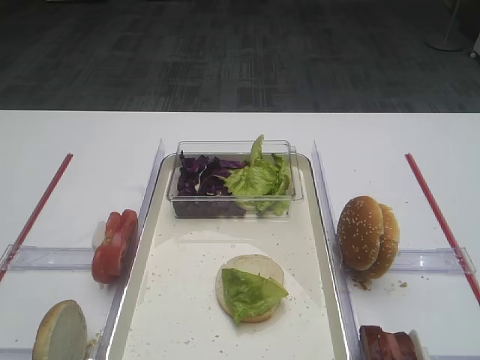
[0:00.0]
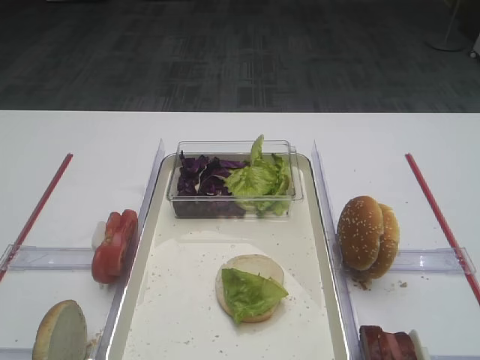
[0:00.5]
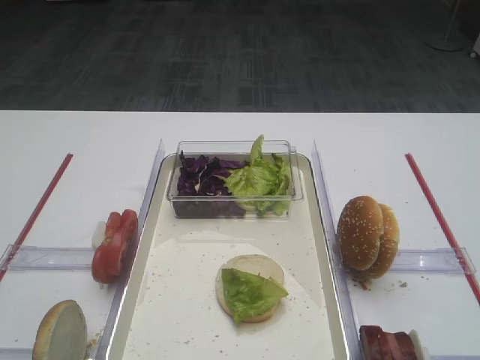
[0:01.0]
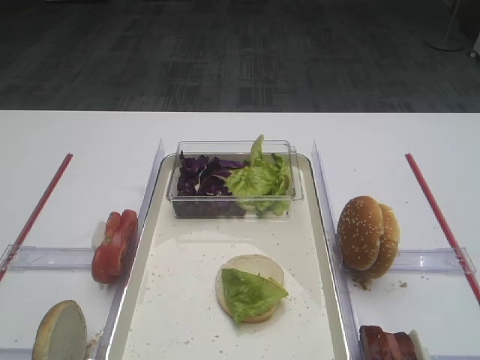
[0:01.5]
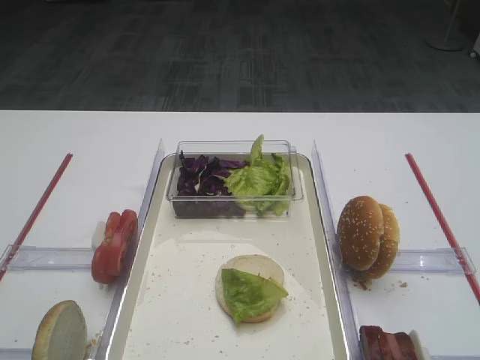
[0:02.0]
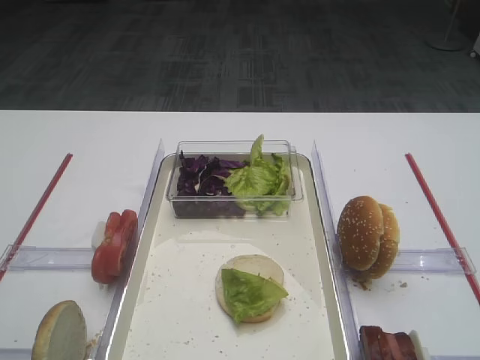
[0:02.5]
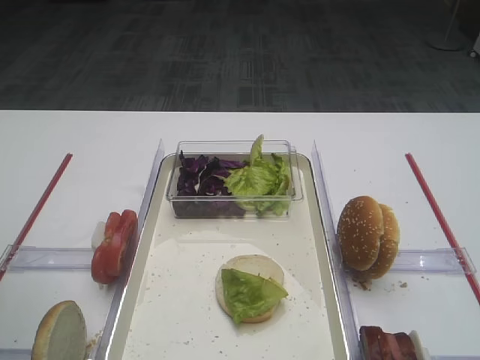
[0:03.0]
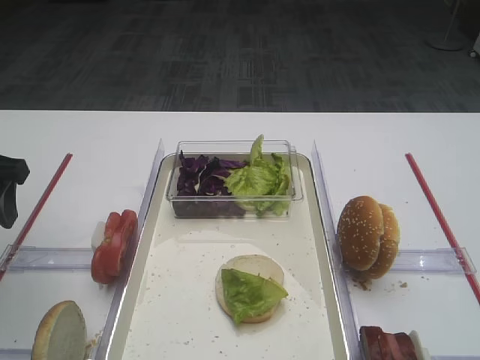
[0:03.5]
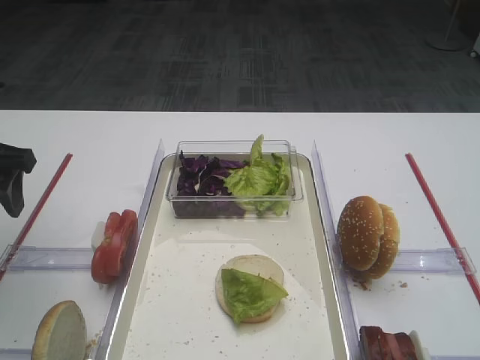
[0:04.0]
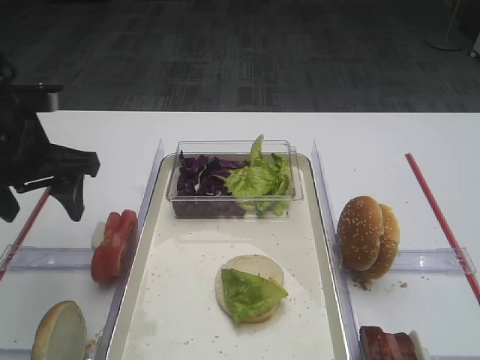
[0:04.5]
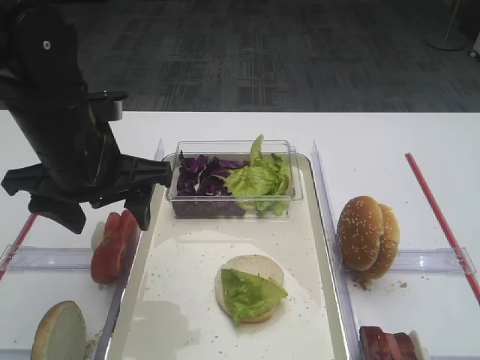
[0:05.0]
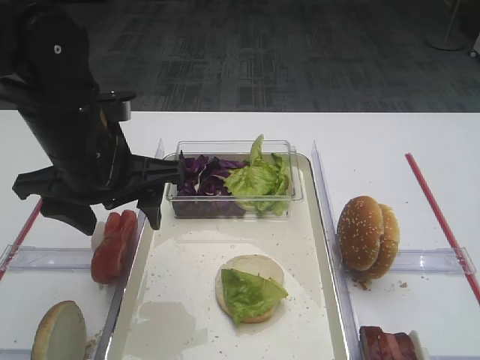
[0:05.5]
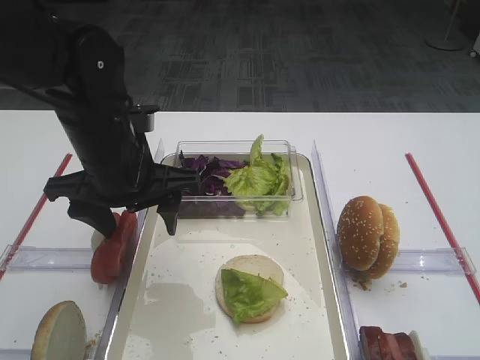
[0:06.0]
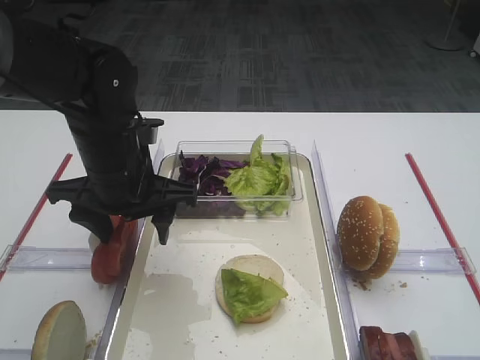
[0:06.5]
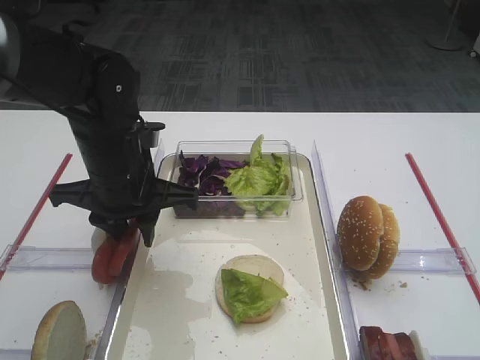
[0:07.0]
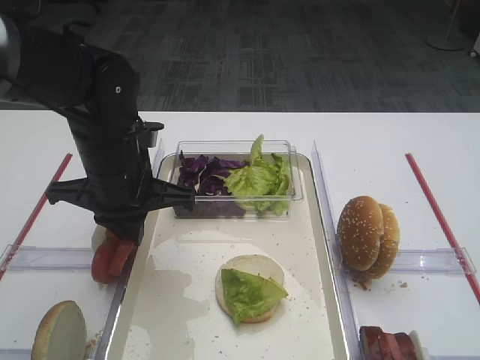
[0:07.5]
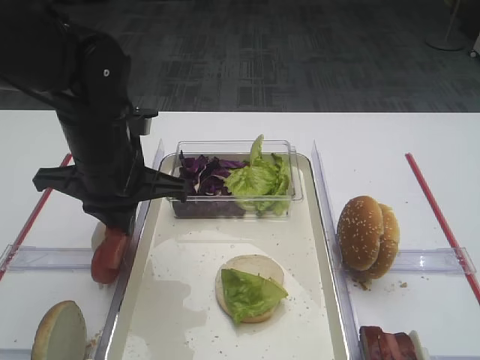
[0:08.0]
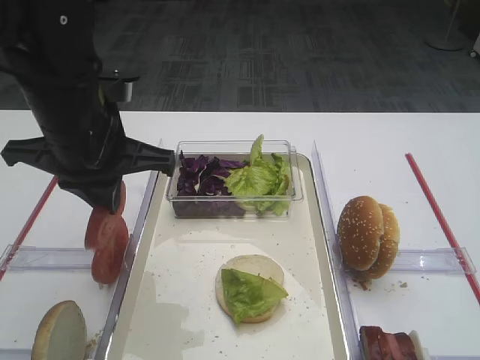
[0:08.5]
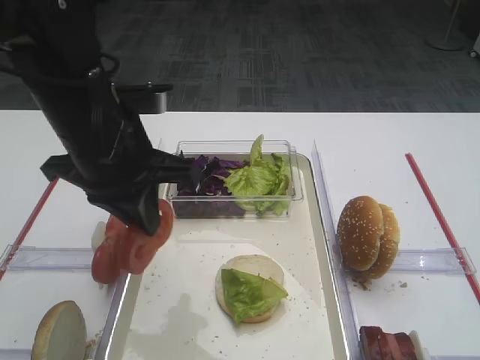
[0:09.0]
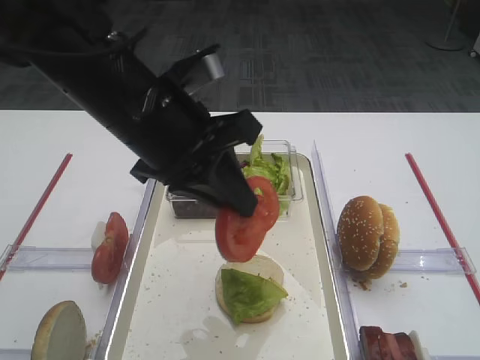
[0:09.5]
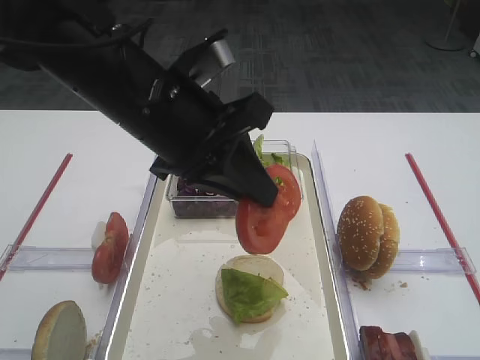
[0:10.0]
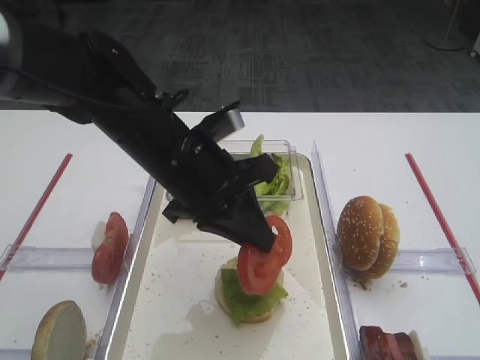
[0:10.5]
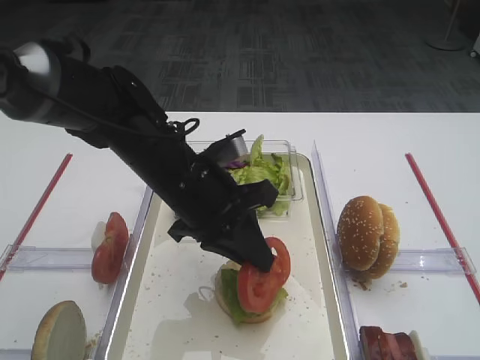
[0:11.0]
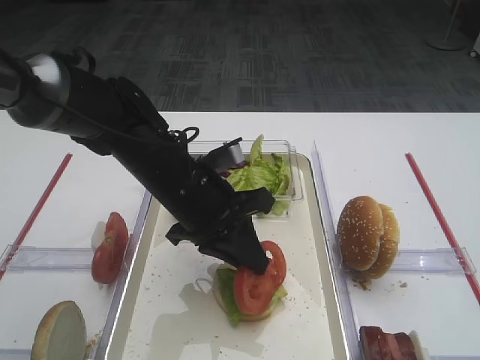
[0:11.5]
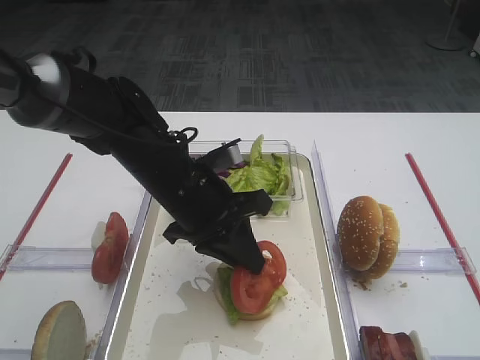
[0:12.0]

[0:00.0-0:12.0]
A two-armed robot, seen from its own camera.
Step, 0:00.0 to 0:08.0: Pick up the tomato slice with the left gripper.
0:02.0 to 0:04.0: The left gripper is displaced forward by about 20 cm.
0:04.0 to 0:06.0: The right gripper closes. Meanwhile the left gripper shifts some 15 cm to the right.
0:06.0 to 0:08.0: The left gripper closes up.
0:08.0 to 0:10.0: The left gripper goes some 10 cm upward and to the right.
0:10.0 to 0:12.0: The left gripper goes some 10 cm downward.

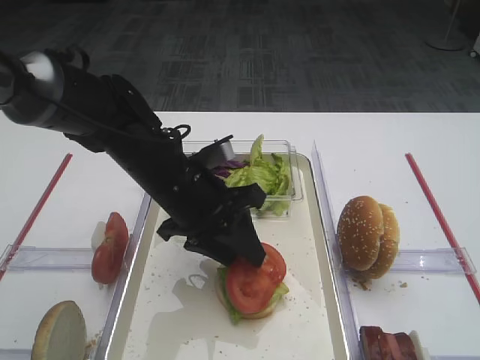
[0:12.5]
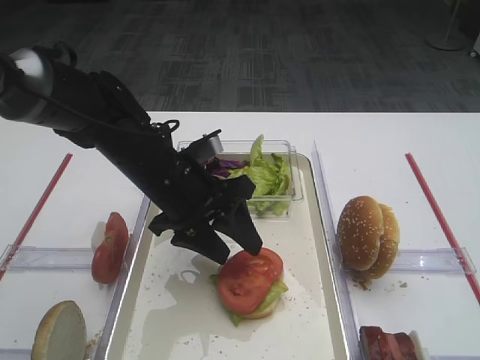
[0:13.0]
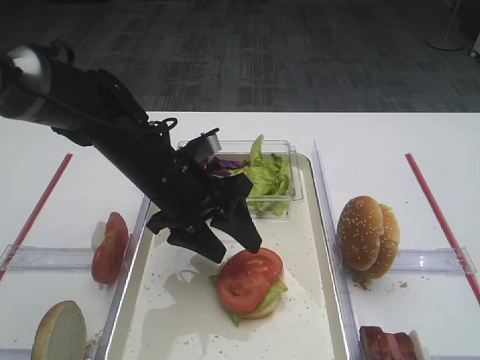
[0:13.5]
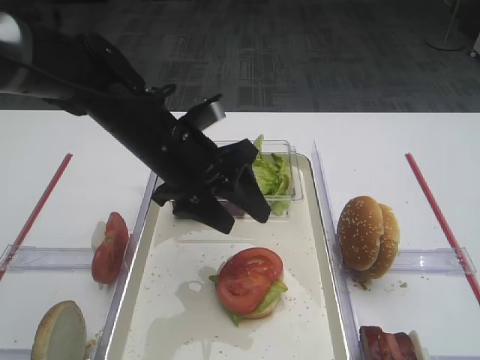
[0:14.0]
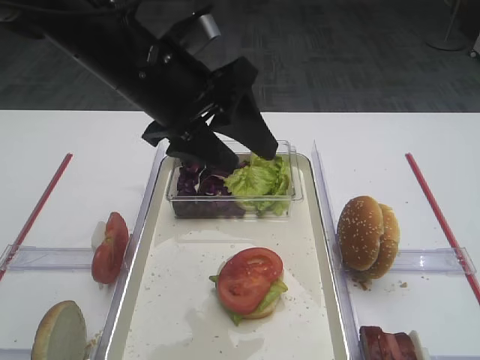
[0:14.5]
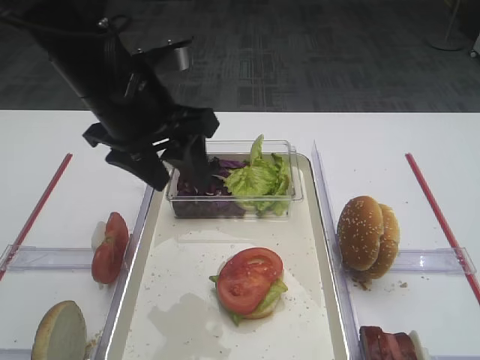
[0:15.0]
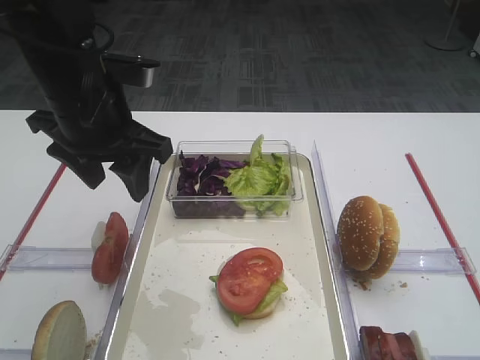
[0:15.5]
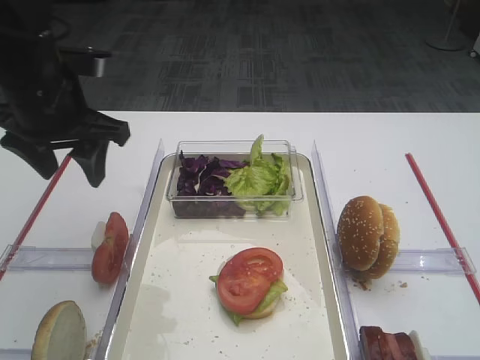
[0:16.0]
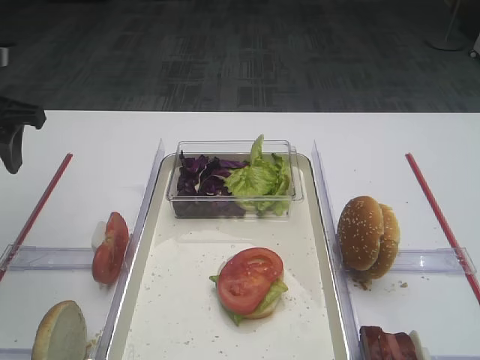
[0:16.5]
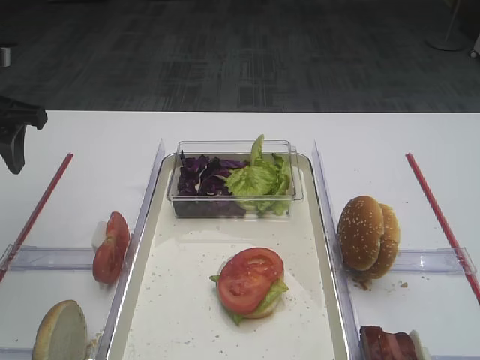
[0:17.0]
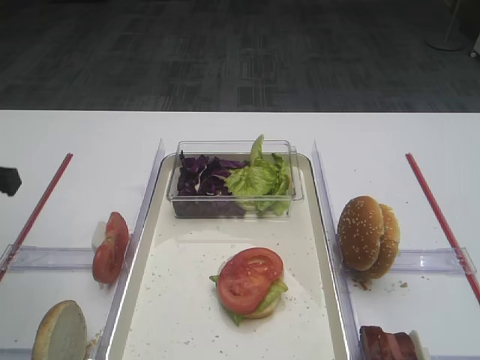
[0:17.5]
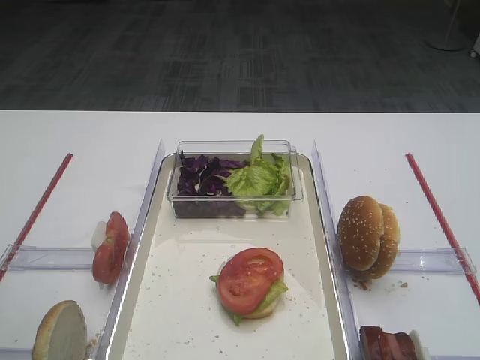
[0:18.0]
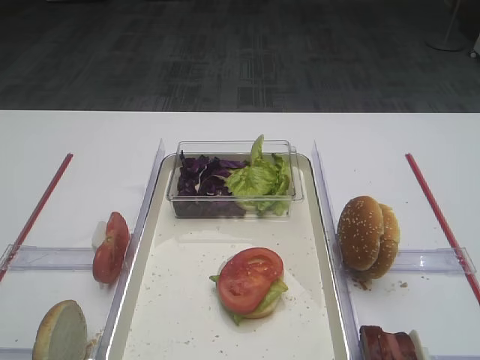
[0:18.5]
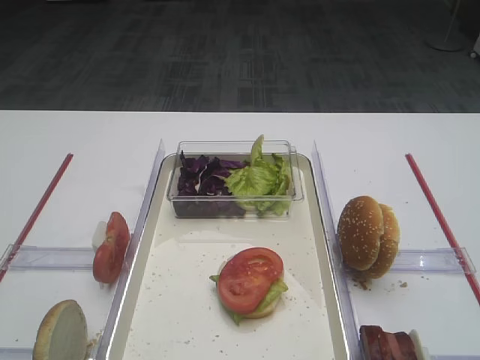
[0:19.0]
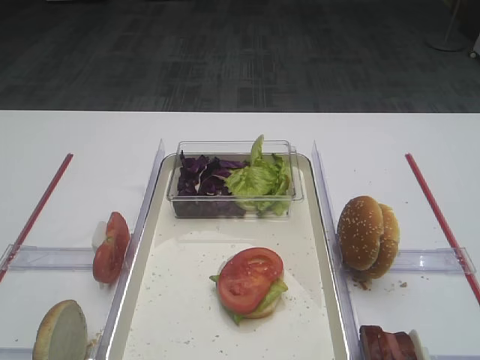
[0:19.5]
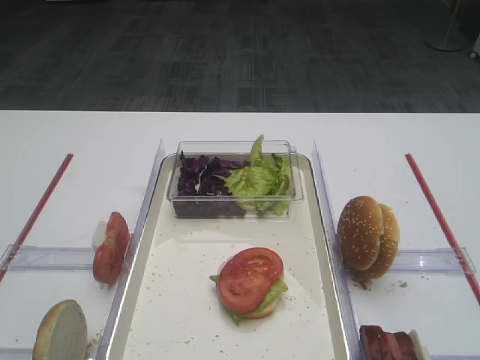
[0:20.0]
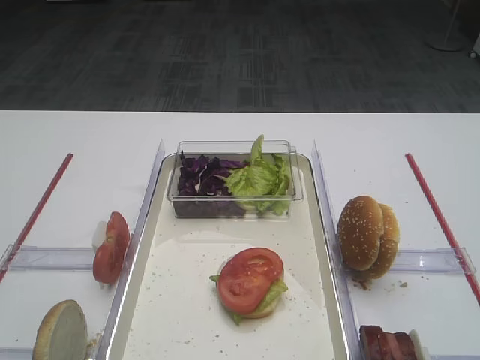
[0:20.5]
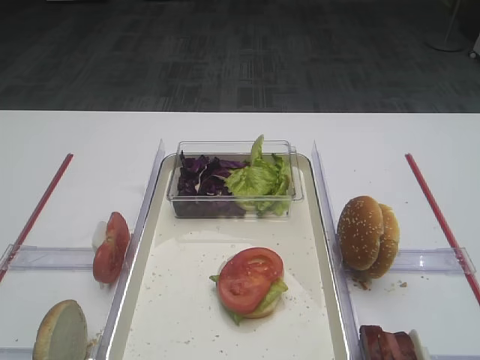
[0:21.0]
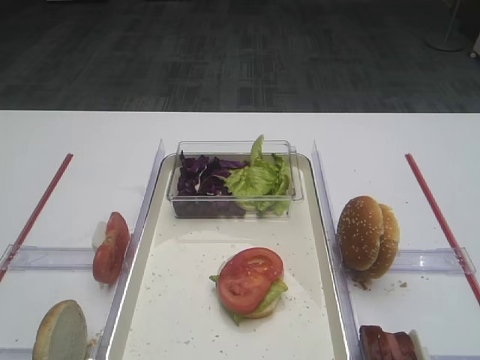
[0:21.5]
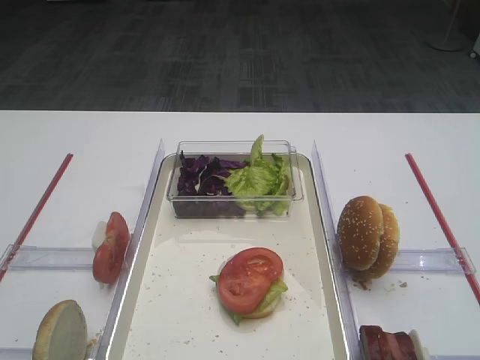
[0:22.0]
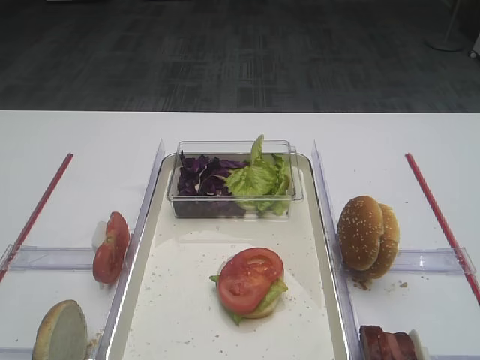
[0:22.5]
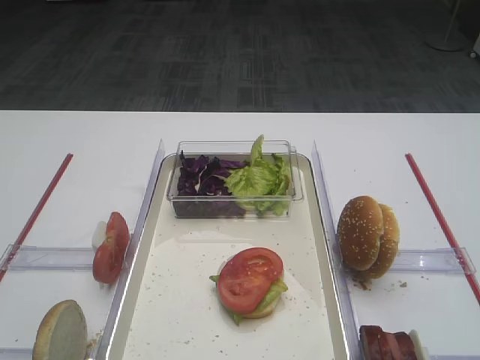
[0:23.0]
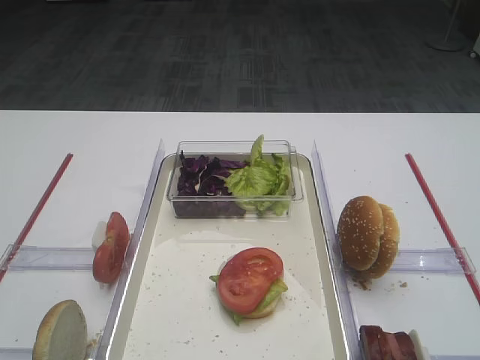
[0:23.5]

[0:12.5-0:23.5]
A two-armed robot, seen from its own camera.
Step, 0:12.5 to 0:14.5: Place the tomato slice on the lettuce leaf with the left gripper.
0:12.5 to 0:14.5: The left gripper travels upward by roughly 10 cm.
0:14.5 to 0:16.0: The left gripper travels to the left by some 10 cm.
0:16.0 to 0:18.0: The left gripper moves backward and to the left, about 20 cm.
0:20.0 to 0:21.5: The two grippers keep their place.

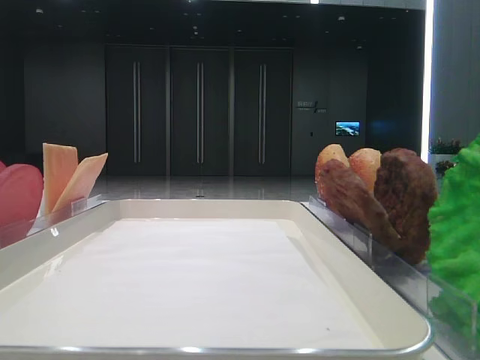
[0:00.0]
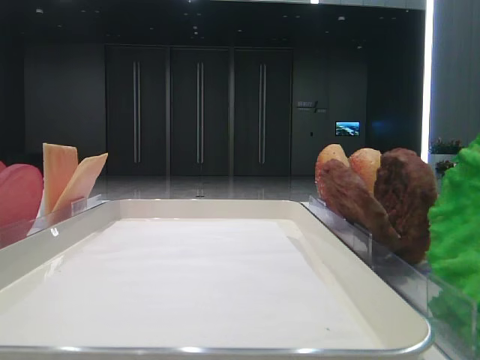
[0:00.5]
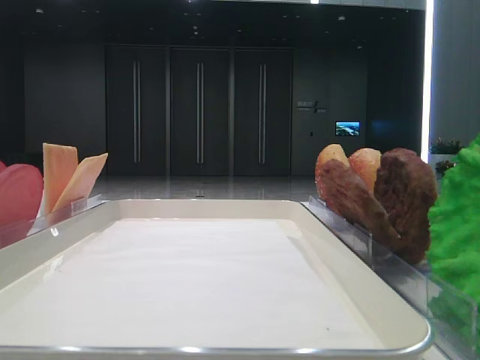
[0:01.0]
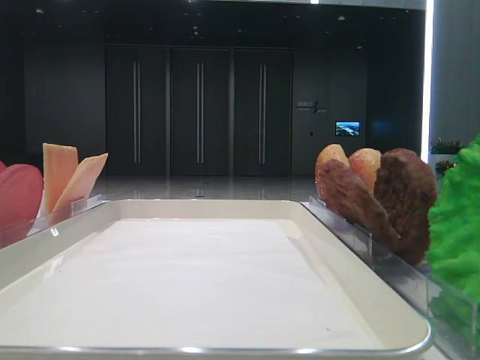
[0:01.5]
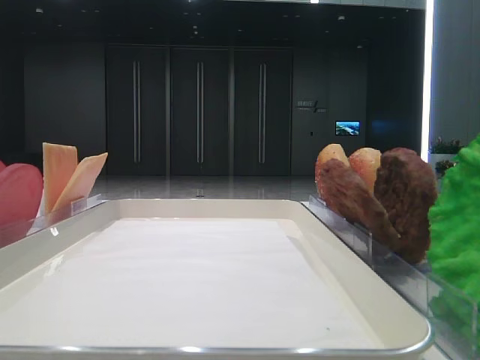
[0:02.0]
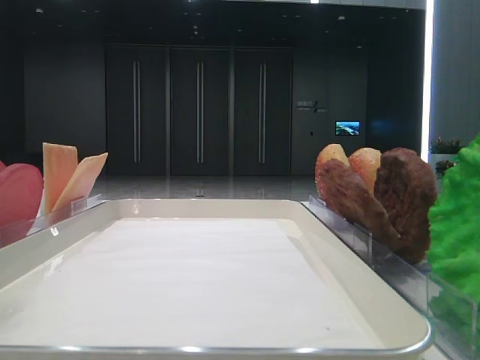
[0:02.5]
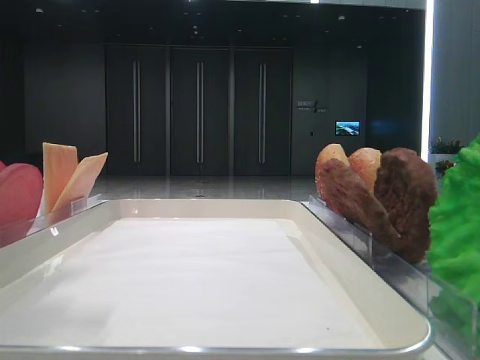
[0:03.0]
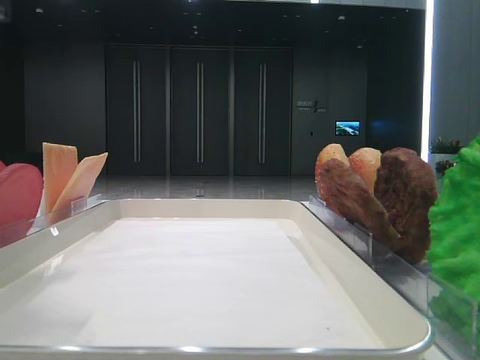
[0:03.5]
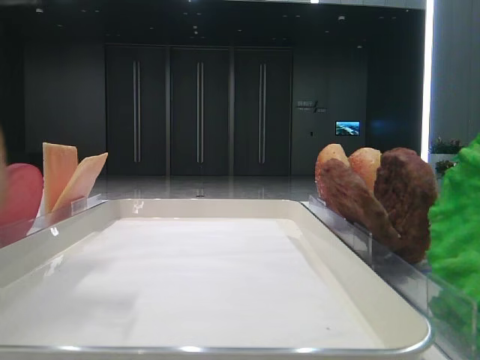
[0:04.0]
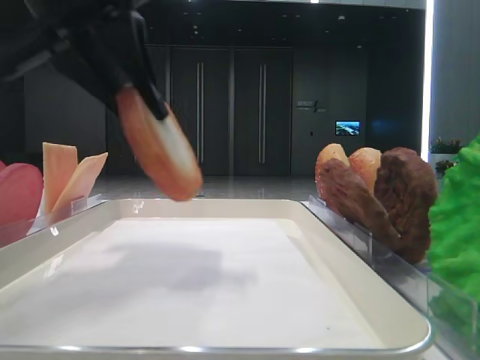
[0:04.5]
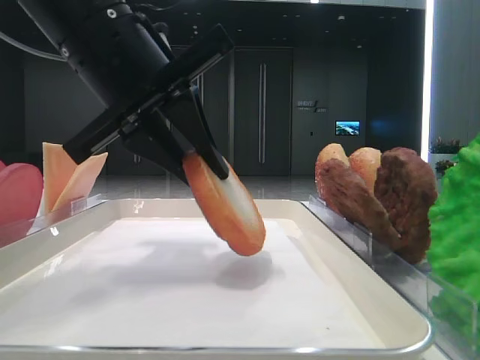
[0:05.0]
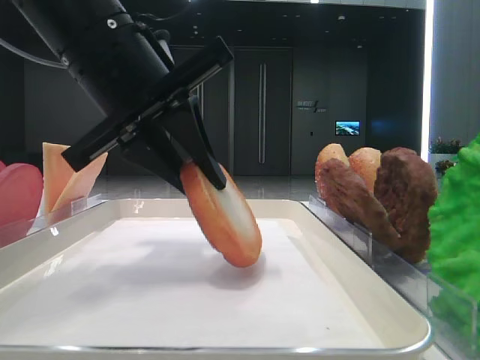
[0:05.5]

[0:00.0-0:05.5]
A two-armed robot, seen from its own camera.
Step, 0:00.0 to 0:03.5: Pick up the bottom bread with the left hand.
0:02.0 to 0:03.5: The left gripper moves to the right and downward, about 15 cm.
0:03.5 to 0:05.5: The left gripper is displaced to the right and forward by about 15 cm, and closes up.
